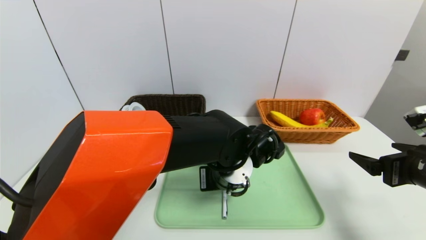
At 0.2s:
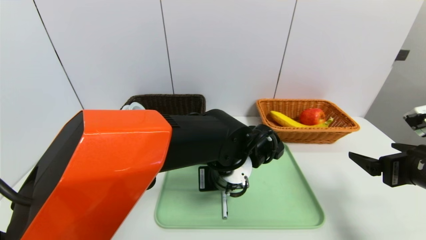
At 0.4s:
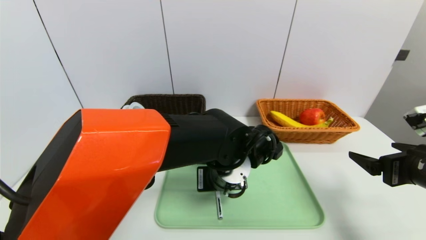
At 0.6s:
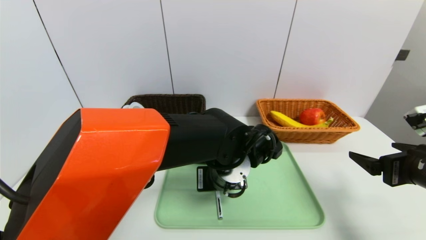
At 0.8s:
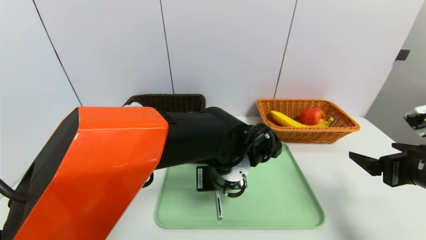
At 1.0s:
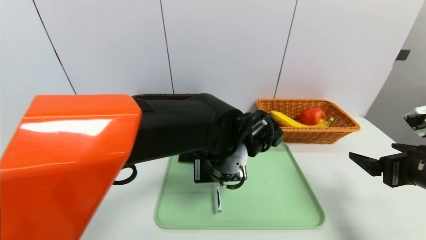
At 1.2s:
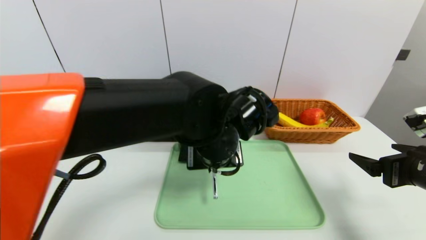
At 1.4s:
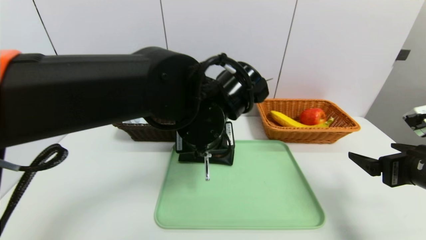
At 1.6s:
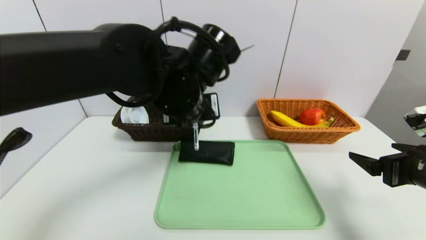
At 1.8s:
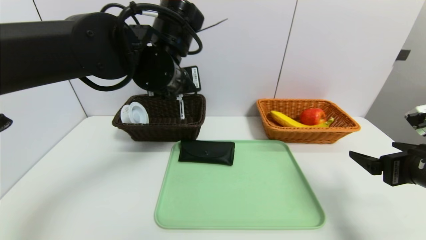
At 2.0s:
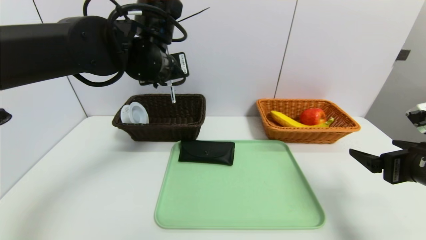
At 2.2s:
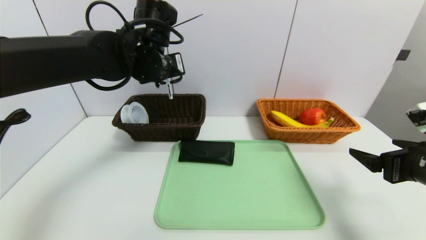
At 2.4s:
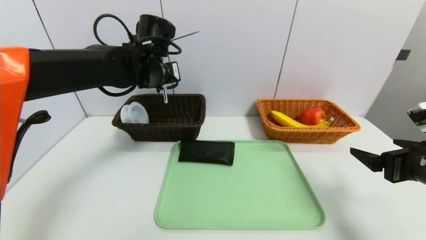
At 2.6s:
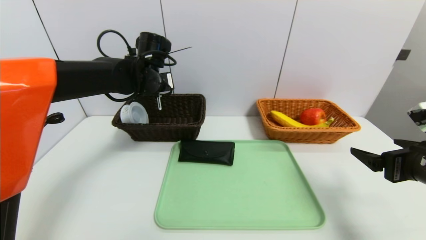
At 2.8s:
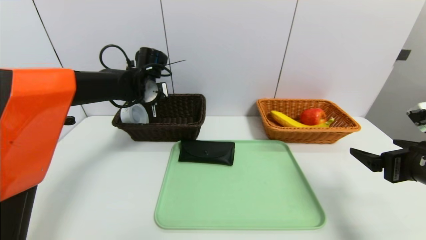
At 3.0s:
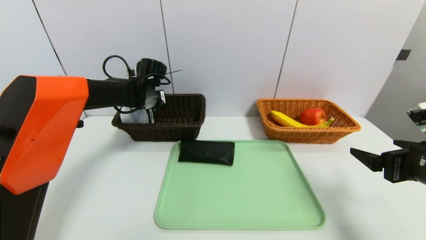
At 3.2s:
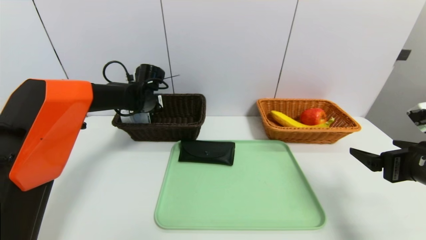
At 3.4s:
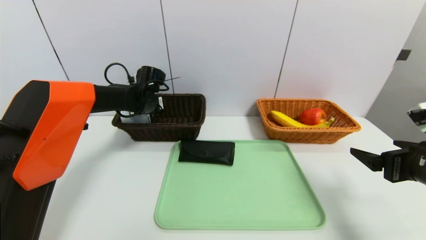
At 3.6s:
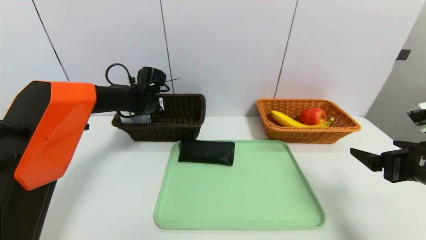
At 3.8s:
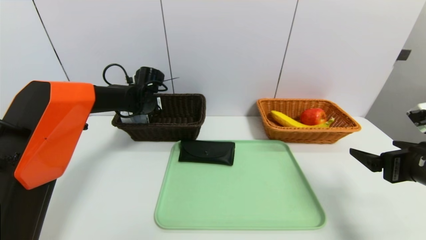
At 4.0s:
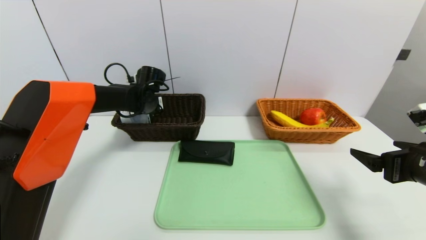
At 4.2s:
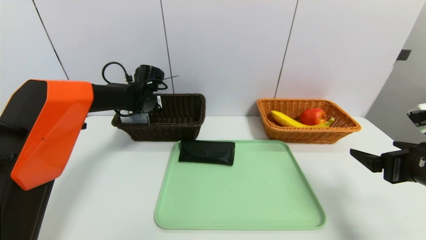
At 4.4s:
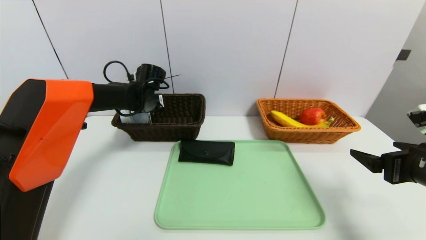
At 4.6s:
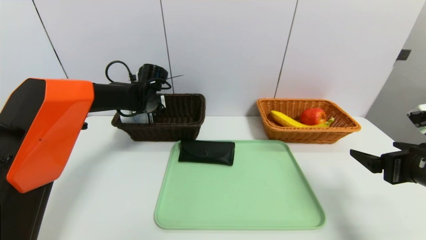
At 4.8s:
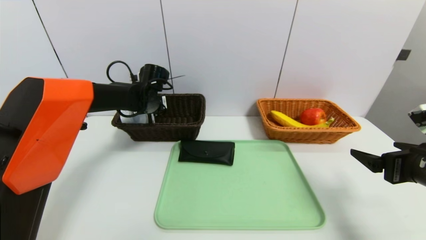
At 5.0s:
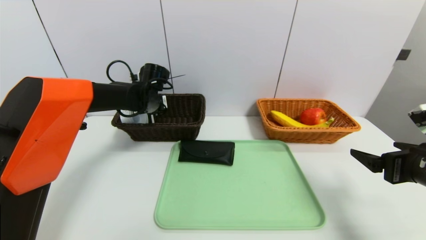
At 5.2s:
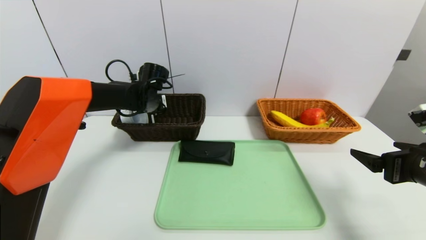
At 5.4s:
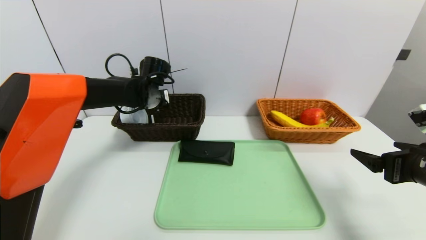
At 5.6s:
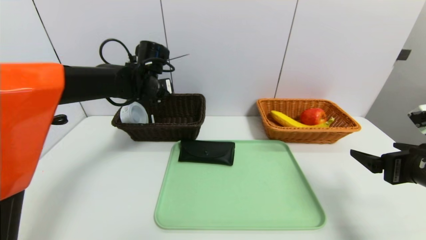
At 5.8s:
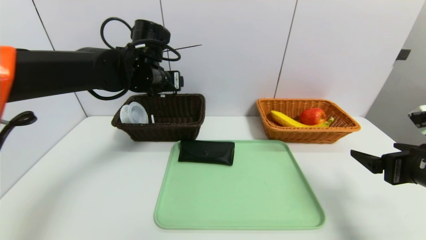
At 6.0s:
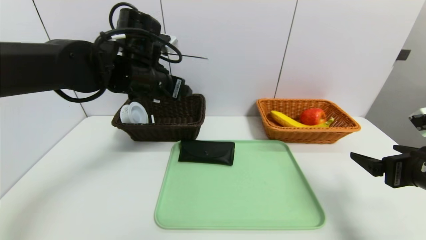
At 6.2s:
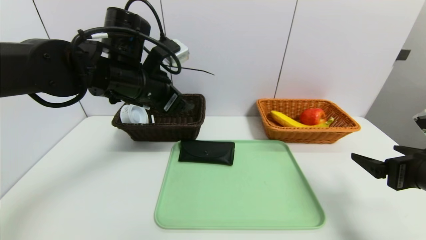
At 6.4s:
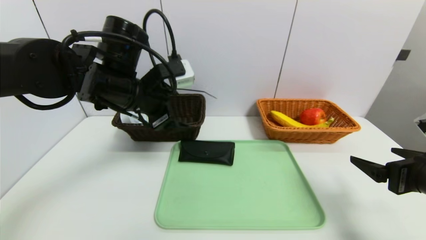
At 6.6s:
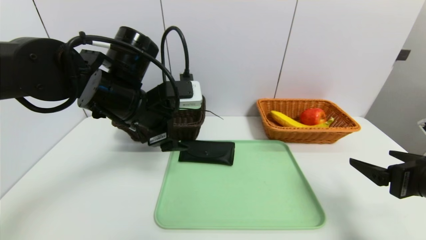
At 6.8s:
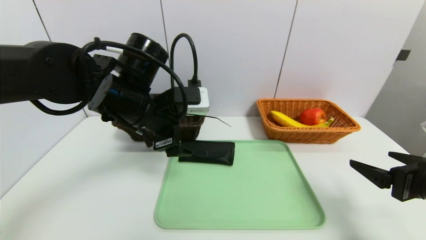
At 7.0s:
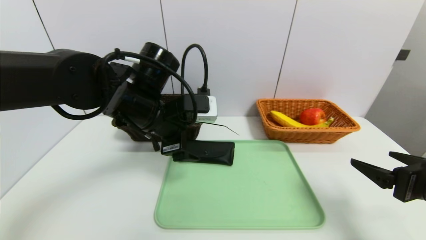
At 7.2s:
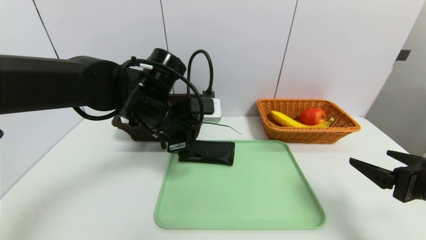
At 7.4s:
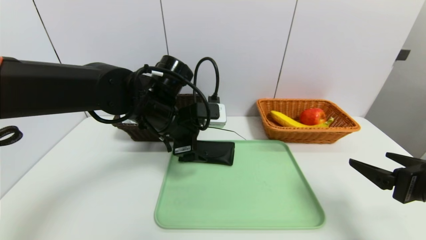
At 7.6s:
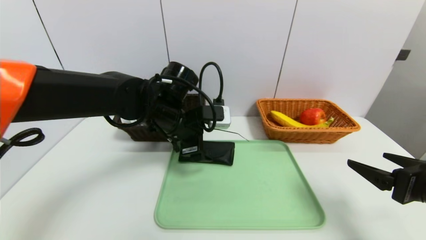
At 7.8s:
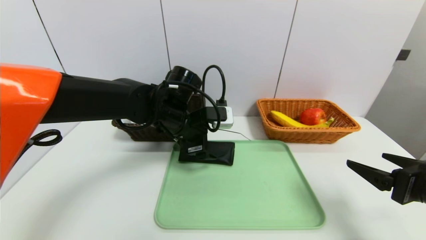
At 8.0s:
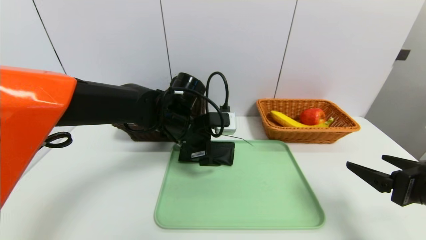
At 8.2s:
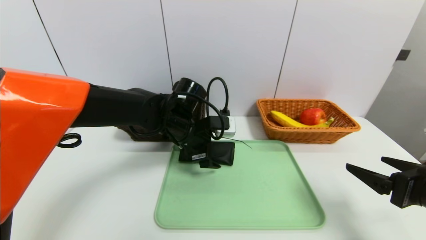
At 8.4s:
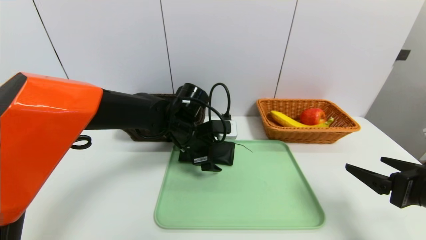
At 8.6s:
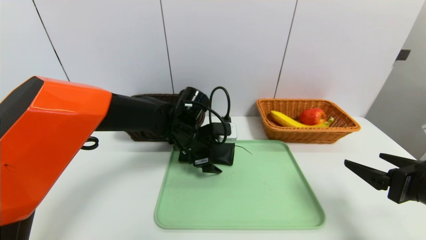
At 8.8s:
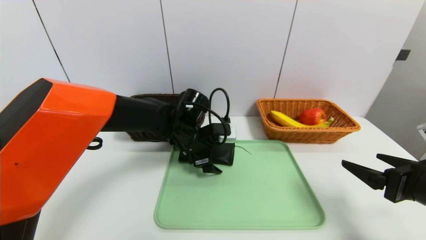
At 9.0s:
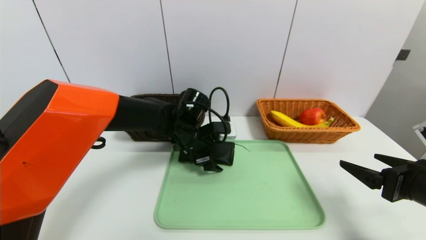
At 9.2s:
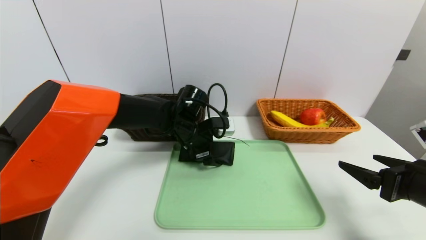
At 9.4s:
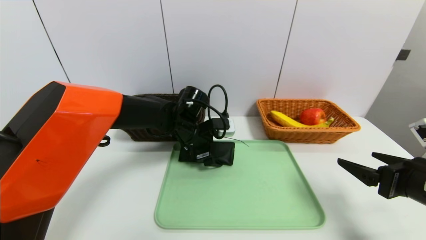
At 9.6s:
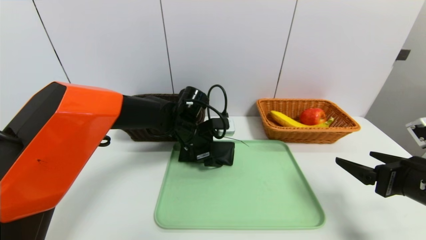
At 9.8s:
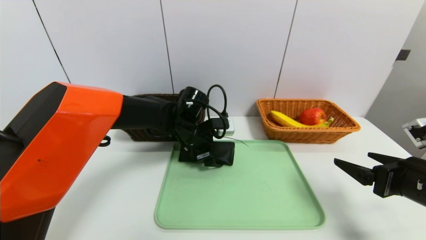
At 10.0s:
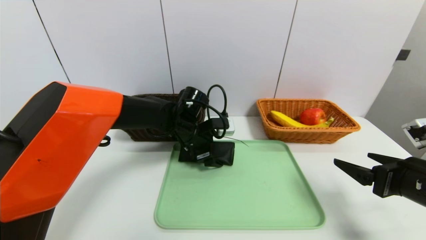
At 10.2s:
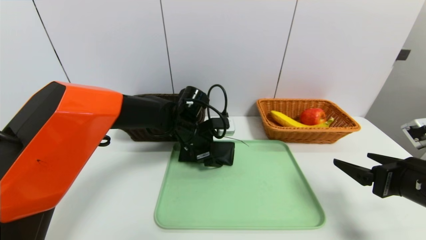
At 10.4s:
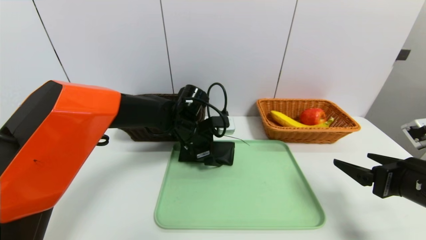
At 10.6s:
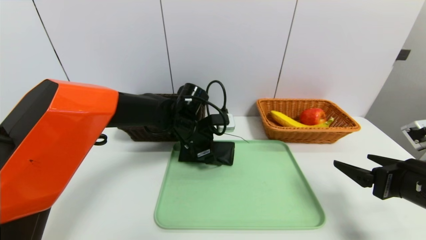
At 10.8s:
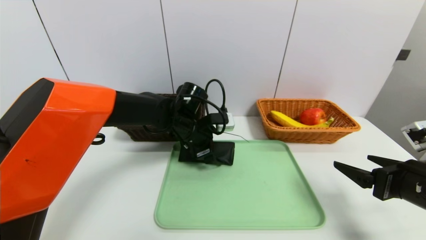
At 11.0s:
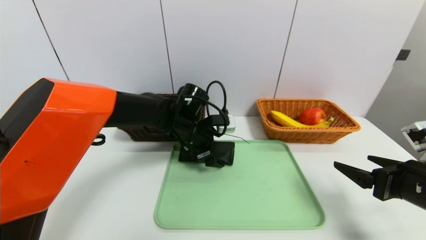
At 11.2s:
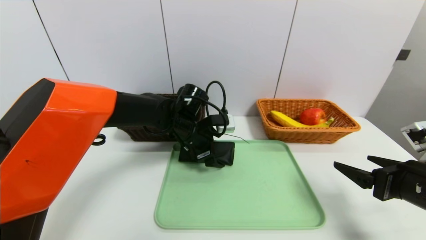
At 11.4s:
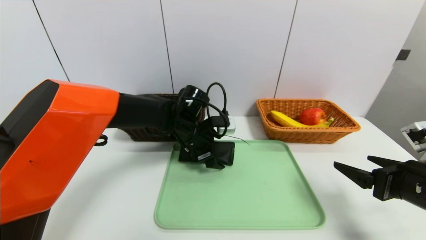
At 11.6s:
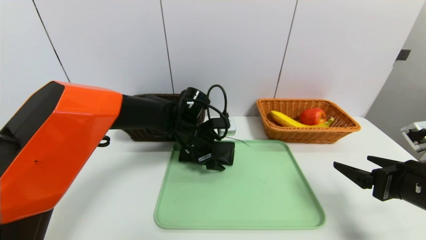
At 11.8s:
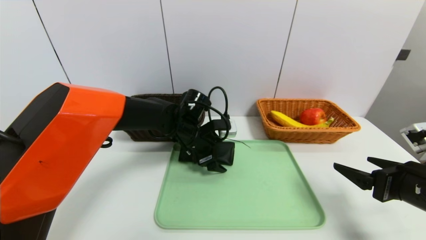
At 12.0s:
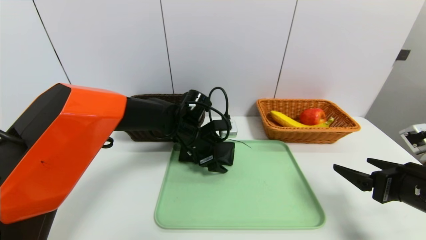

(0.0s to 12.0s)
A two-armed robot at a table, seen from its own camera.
Task of the whole recording: place the food in the right basket with the right gripper, and place the non food items in the left basket with the left gripper.
Step, 0.0s - 5.4s: Grasp the ballpoint pen and put it in the left basket.
0.0s - 1.6s: The left gripper goes roughly 15 cm upward and to the left, and closes up.
1.6s - 3.0s: The left gripper moves forward, to the left and downward, roughly 25 cm.
3.0s - 4.4s: There are only small adjustments of the grippers.
4.4s - 6.0s: The left gripper heads backward and upward, covering approximately 20 cm, and opens up.
6.0s - 7.6s: The left gripper travels downward and to the right by approximately 10 cm.
7.6s - 9.0s: The left gripper goes roughly 5 cm downward.
9.0s - 10.4s: The two grippers keep their place.
10.4s - 12.0s: The grippers stay close to where they were, moving slightly.

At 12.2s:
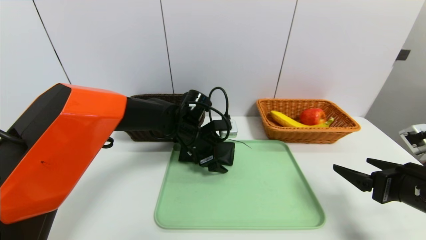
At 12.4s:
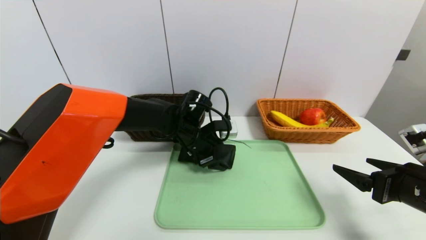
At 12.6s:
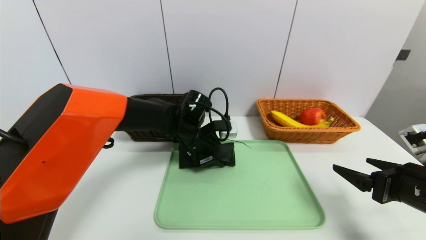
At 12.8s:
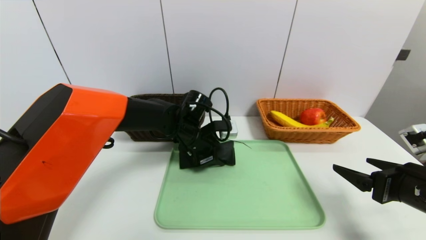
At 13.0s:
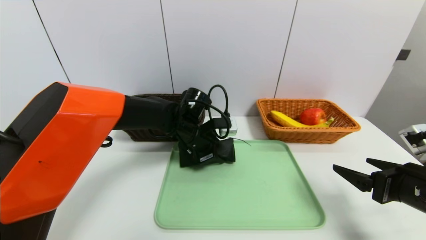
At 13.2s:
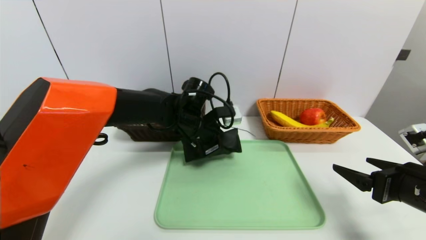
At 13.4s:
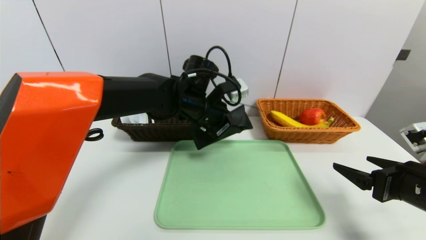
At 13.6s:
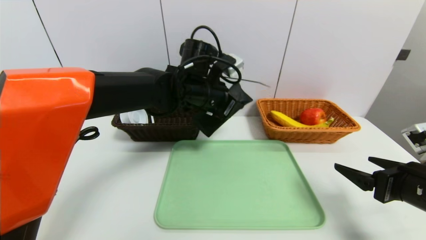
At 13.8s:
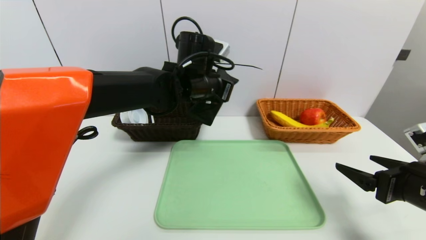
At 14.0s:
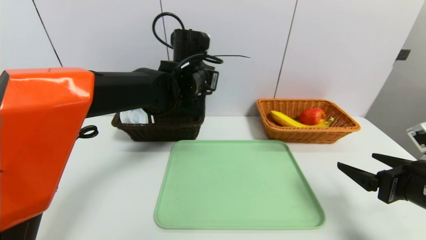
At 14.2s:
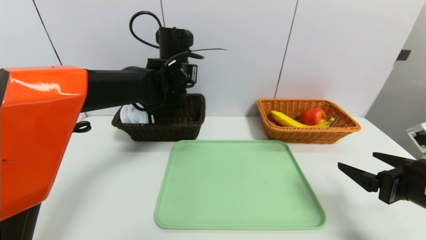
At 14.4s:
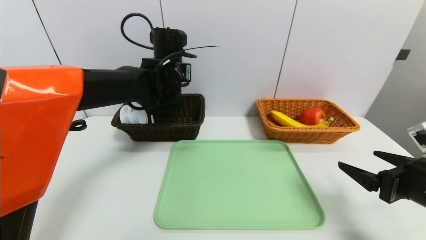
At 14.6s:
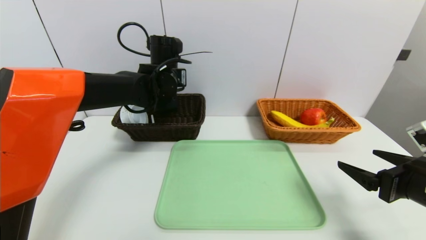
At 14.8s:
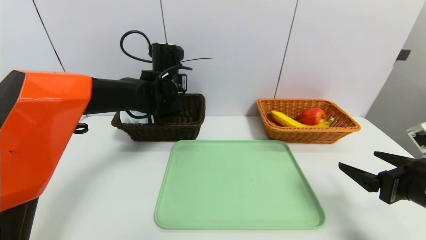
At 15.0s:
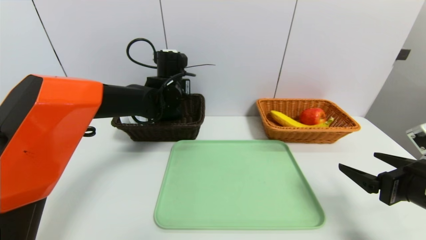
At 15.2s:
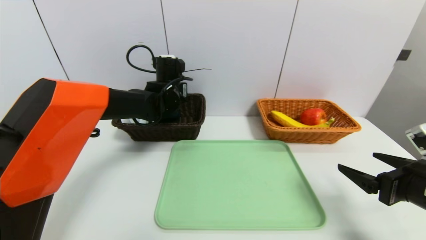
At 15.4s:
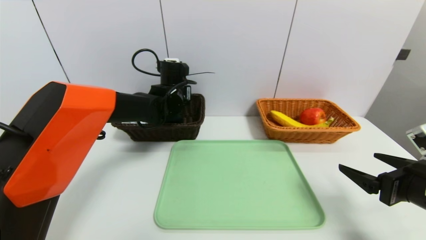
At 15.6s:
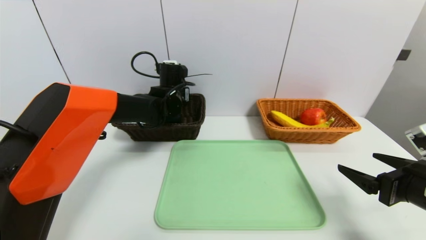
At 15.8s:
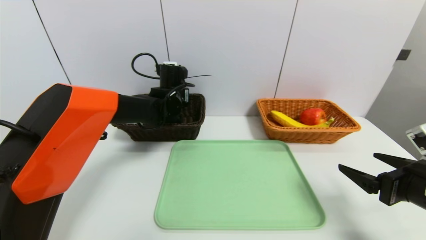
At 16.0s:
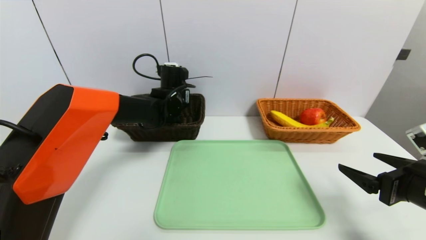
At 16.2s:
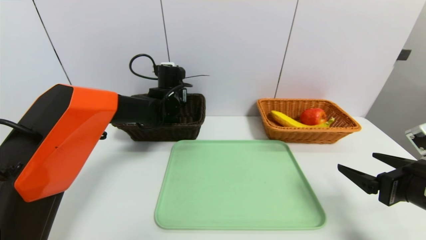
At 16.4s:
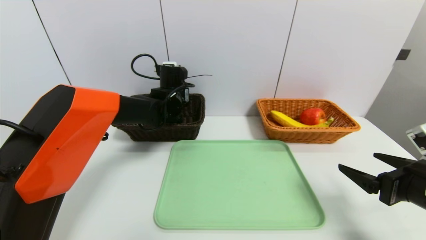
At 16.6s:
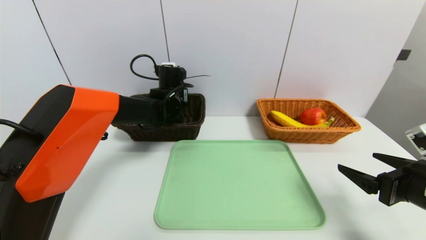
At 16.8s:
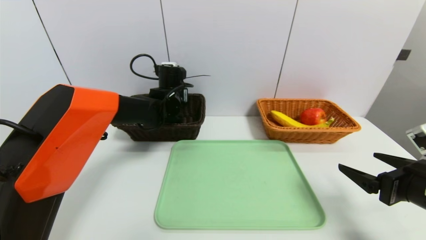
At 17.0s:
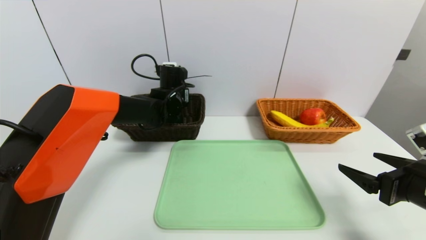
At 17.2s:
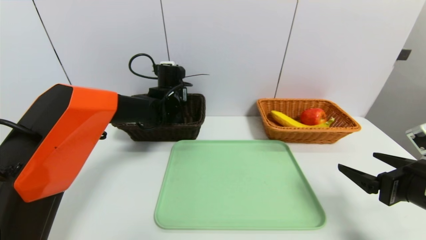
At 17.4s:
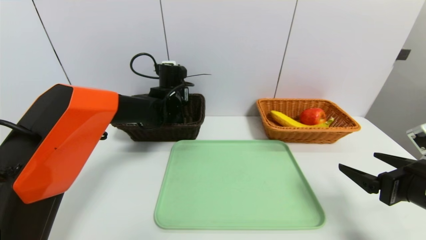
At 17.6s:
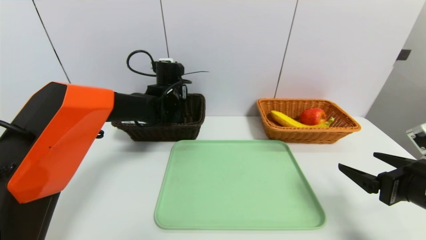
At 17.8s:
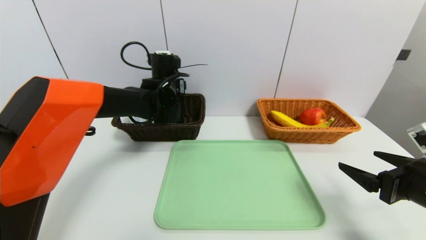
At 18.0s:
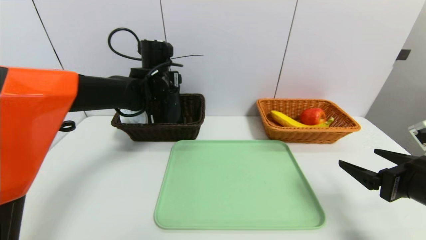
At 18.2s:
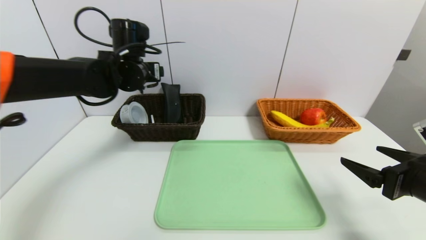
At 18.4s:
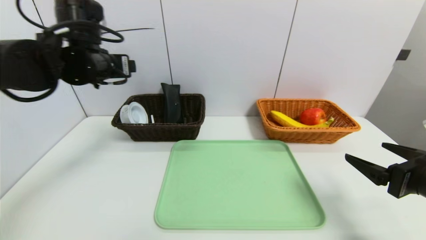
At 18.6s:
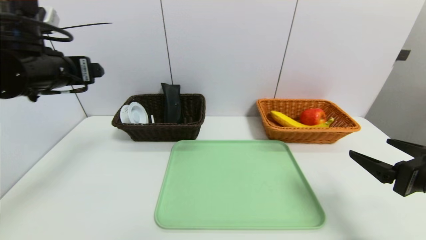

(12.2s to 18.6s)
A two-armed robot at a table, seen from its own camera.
Task of the whole recording: place the food in the right basket with the right gripper, and place the non food items in the left basket with the left gripper.
Step, 12.2s - 18.0s: Grasp the glasses case and put it in the left basket.
12.2s - 13.8s: The left gripper travels upward by about 15 cm, and closes its fingers.
13.8s - 15.4s: The left gripper travels to the left, forward and downward by approximately 10 cm.
15.4s - 17.0s: The grippers stay close to where they were, moving slightly.
17.0s - 18.6s: The left gripper shifts roughly 30 cm backward, to the left and upward, and opens up.
